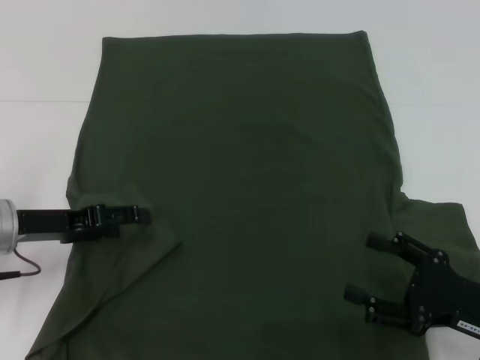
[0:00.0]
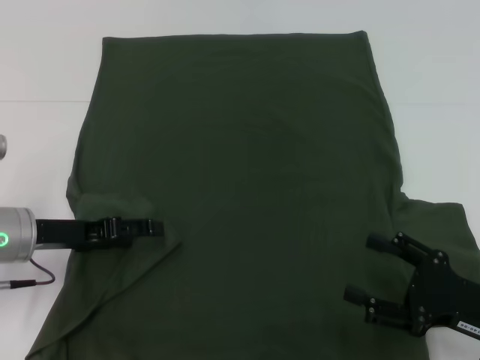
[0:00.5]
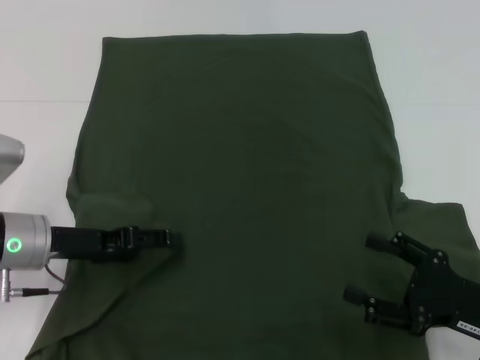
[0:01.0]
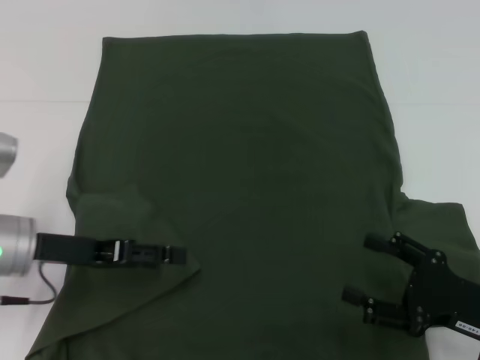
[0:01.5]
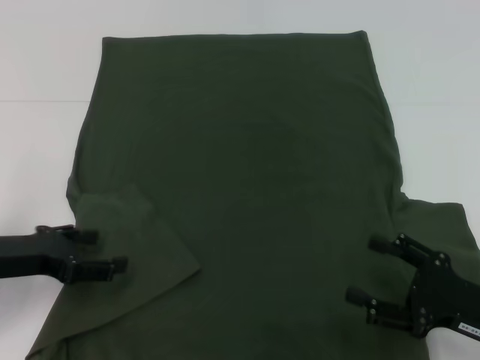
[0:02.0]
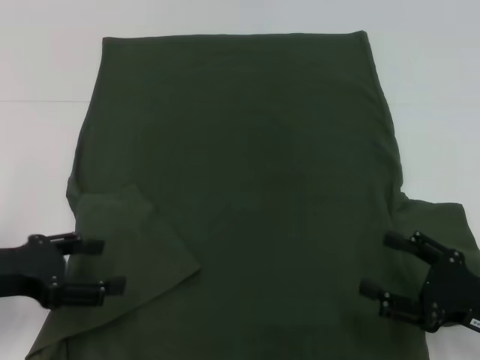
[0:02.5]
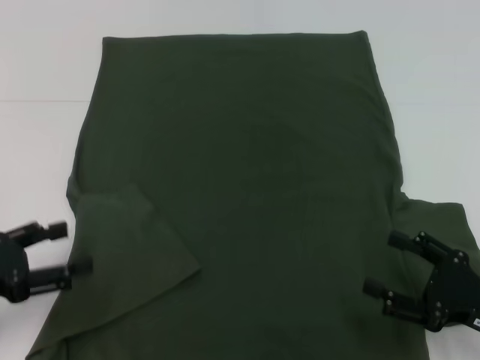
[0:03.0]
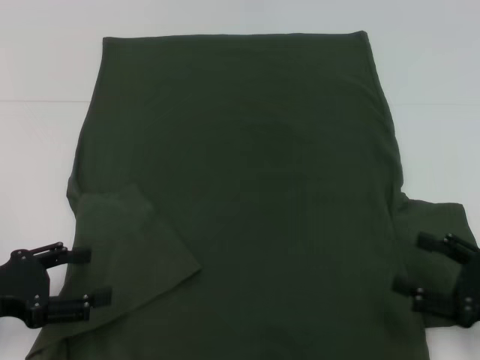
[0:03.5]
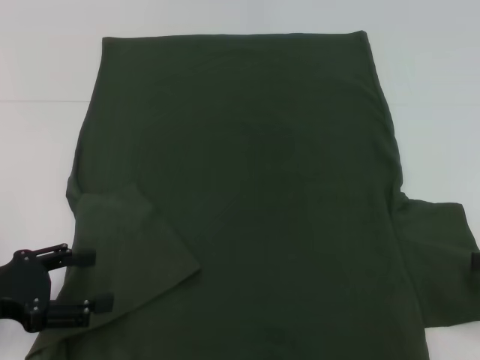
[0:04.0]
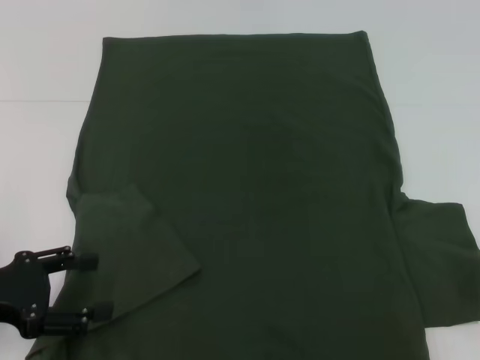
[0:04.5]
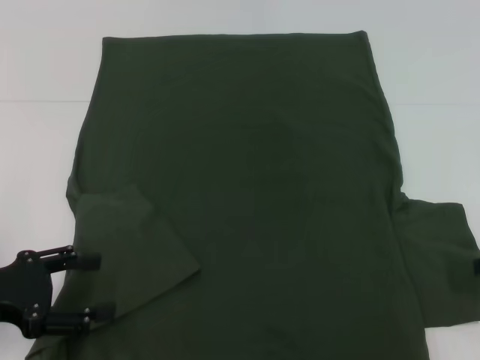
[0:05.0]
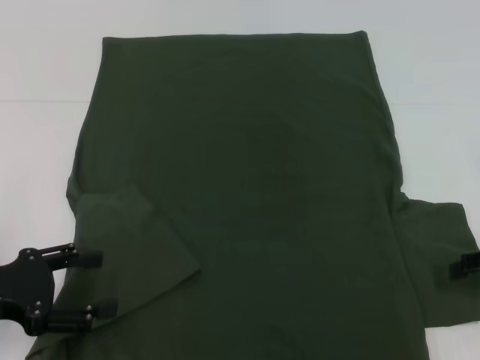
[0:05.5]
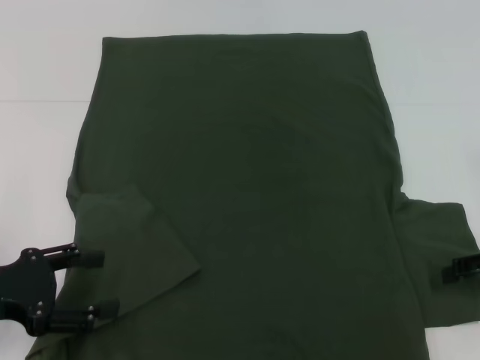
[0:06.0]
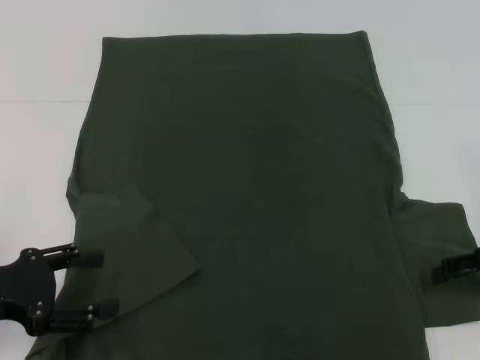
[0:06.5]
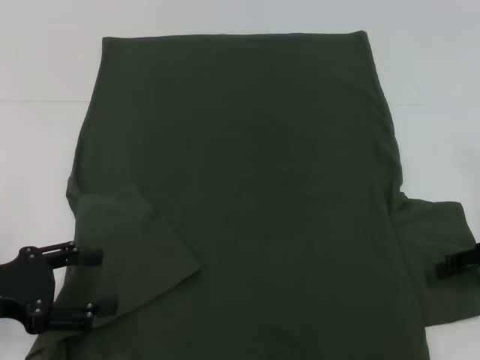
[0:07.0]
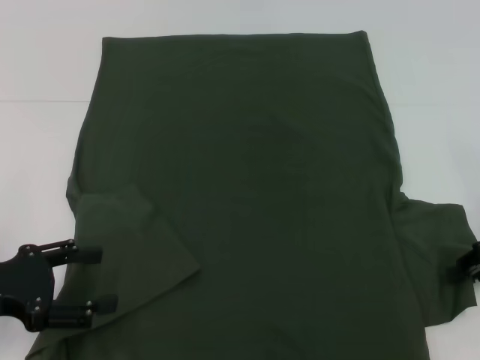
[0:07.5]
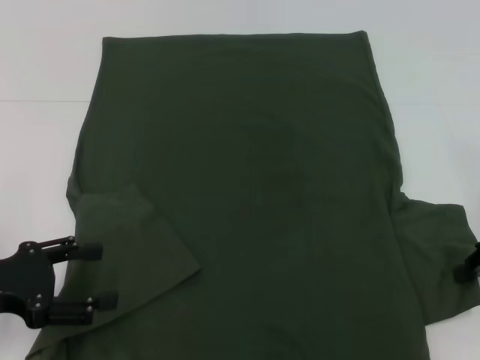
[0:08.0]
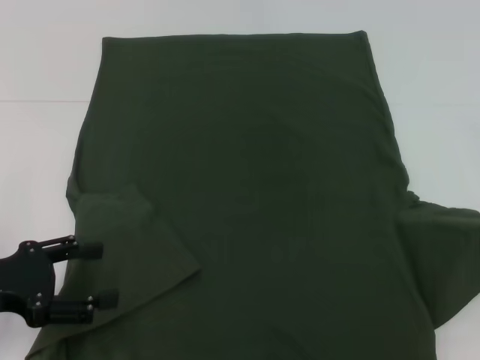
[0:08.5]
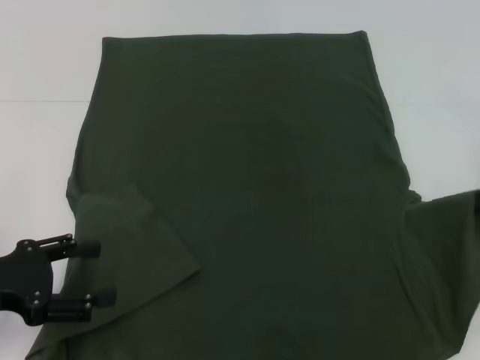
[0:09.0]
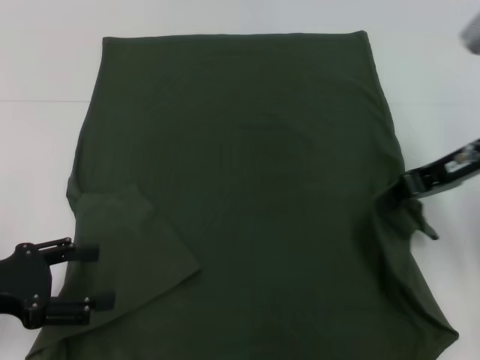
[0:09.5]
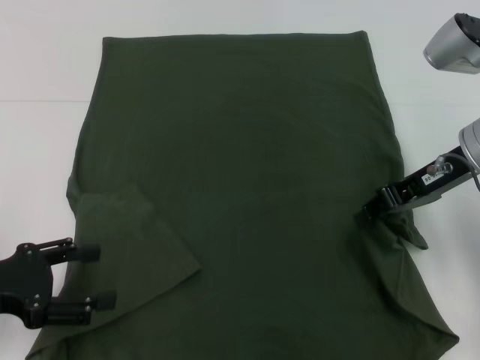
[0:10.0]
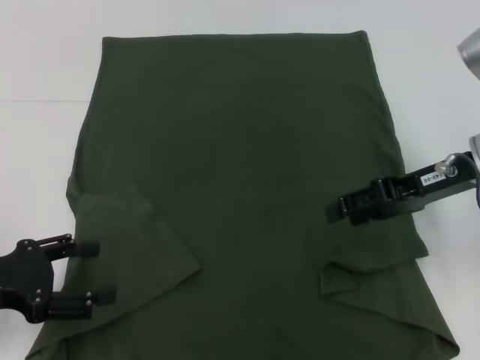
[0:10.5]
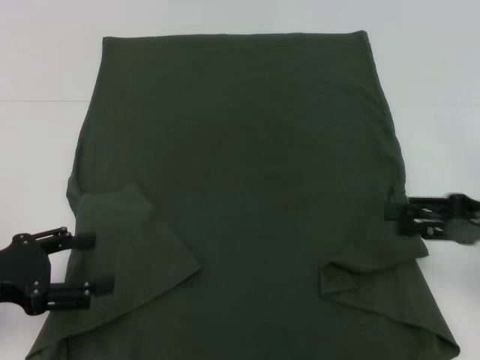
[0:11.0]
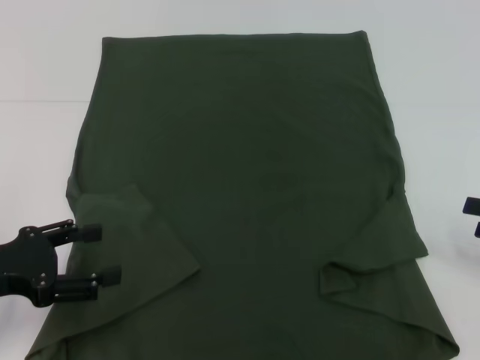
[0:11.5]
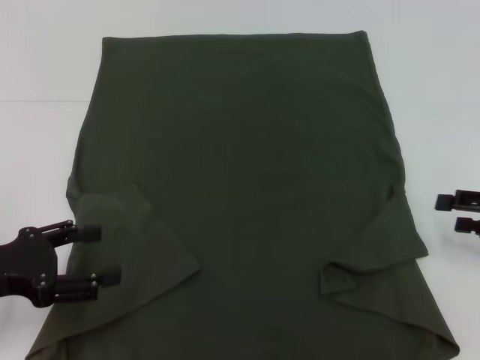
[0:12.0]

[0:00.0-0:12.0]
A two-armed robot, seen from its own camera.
0:02.0 to 0:04.0: The right gripper is displaced to the right and upward by some 15 cm. Meanwhile the left gripper is displaced backward by about 5 cm.
0:08.0 to 0:10.0: The right gripper heads to the left, upward and forward, covering some 15 cm.
0:10.0 to 0:12.0: The right gripper heads to the right, downward and backward, covering approximately 20 cm, and opens up.

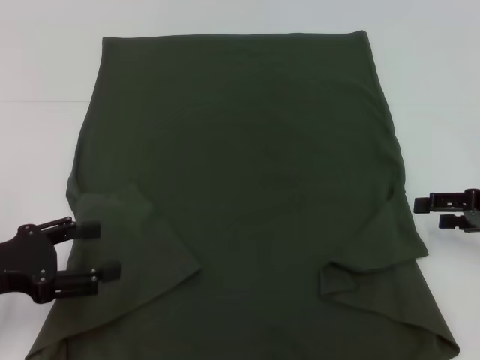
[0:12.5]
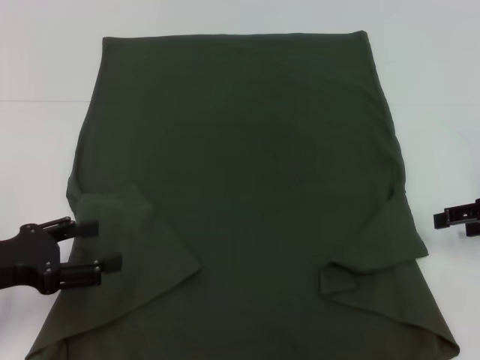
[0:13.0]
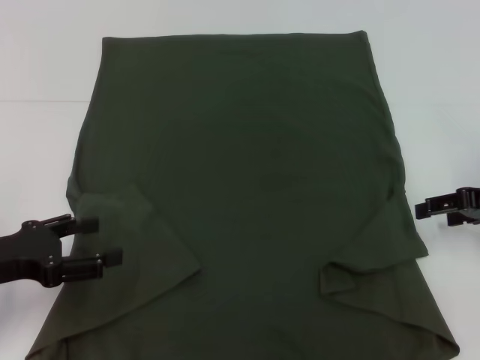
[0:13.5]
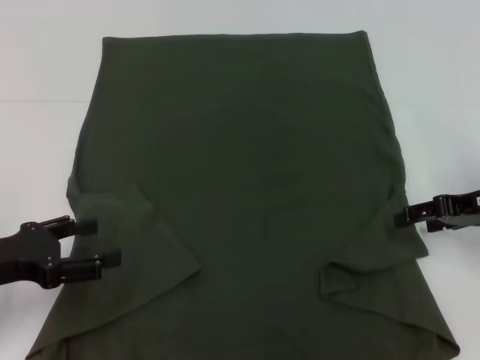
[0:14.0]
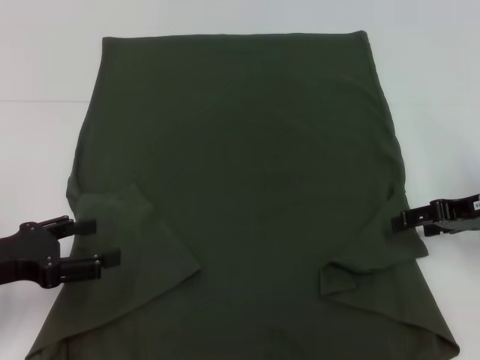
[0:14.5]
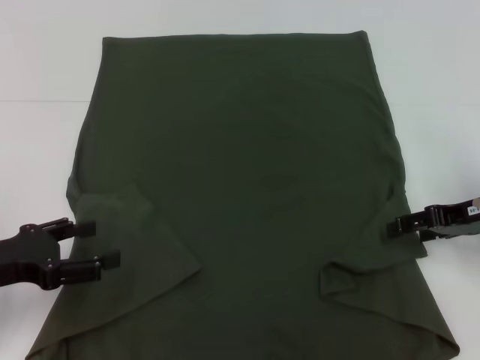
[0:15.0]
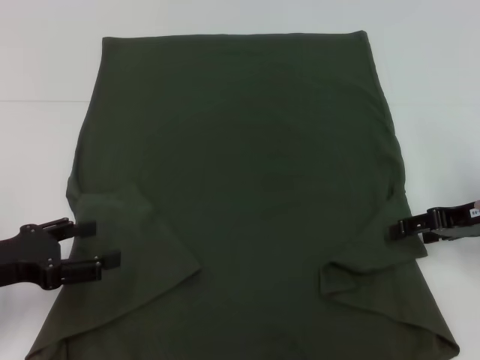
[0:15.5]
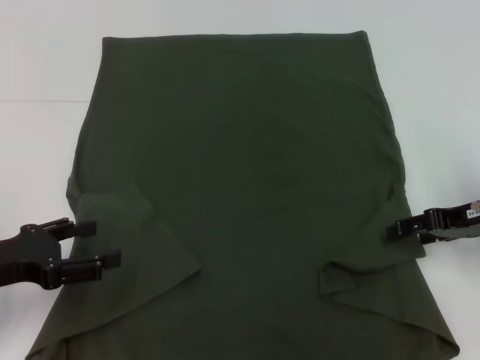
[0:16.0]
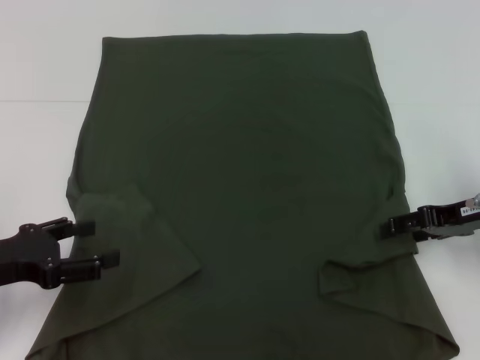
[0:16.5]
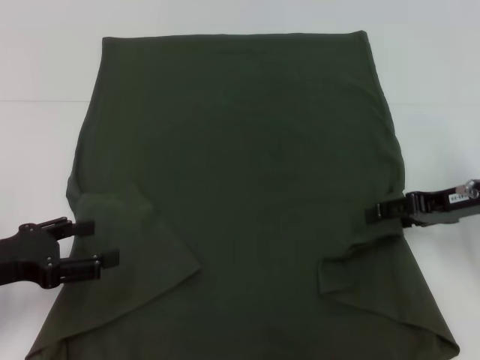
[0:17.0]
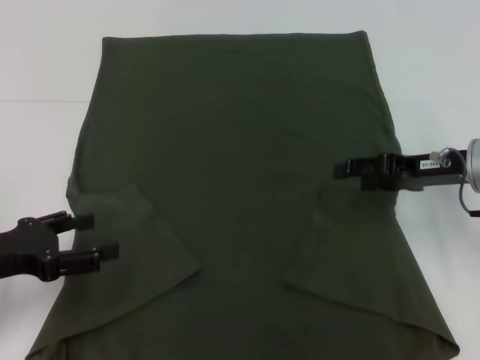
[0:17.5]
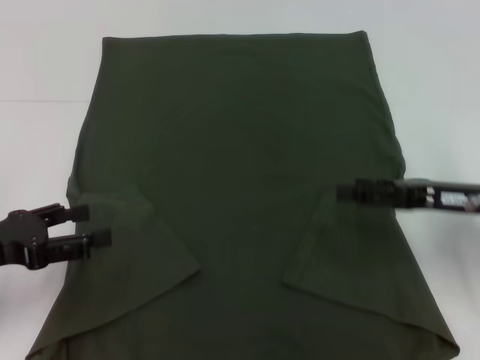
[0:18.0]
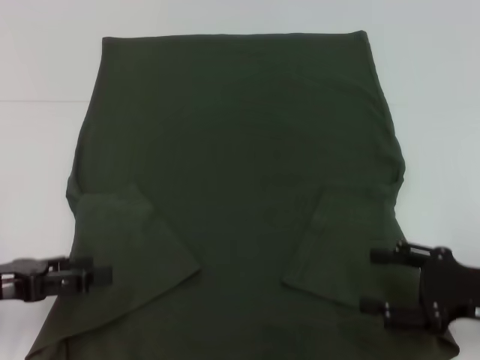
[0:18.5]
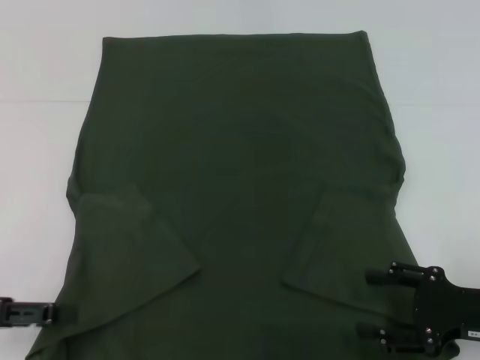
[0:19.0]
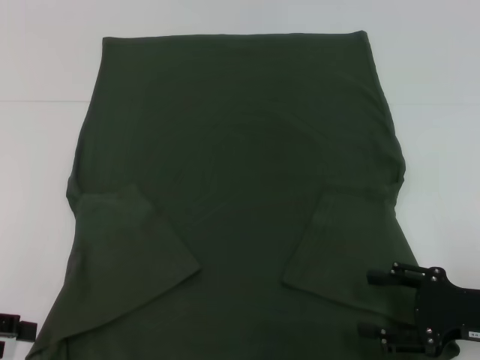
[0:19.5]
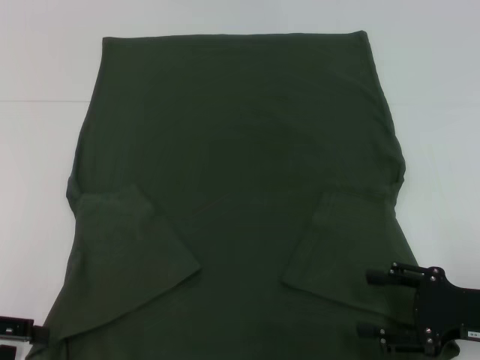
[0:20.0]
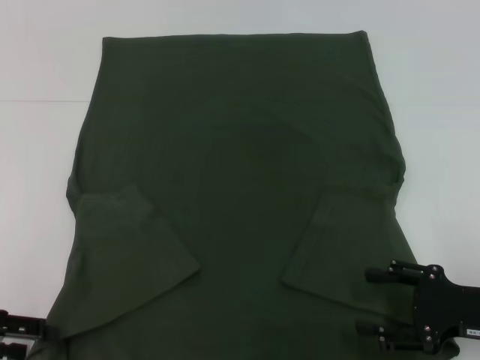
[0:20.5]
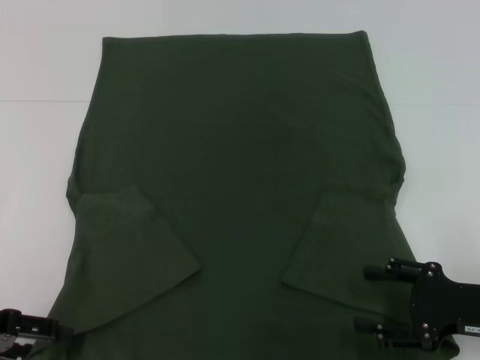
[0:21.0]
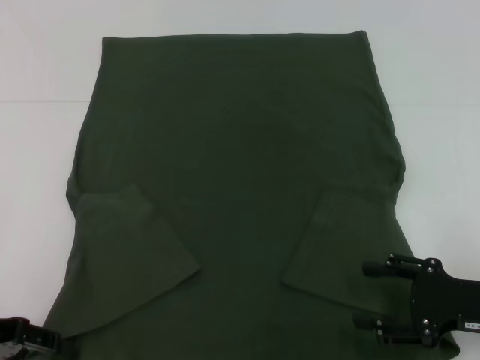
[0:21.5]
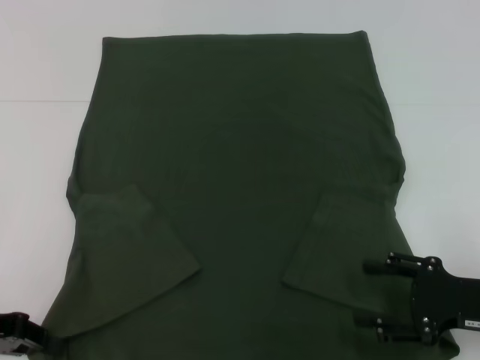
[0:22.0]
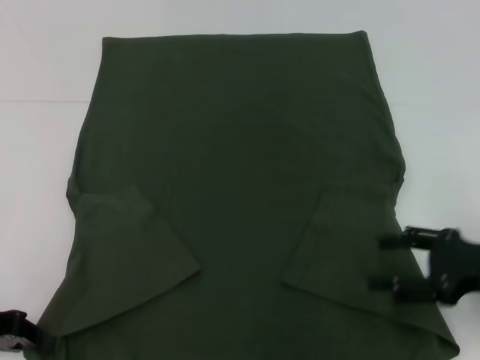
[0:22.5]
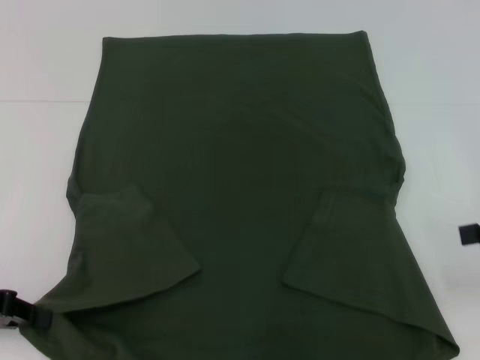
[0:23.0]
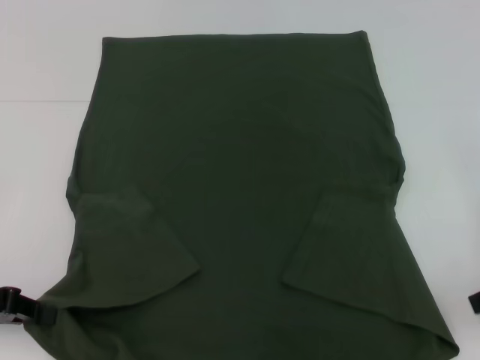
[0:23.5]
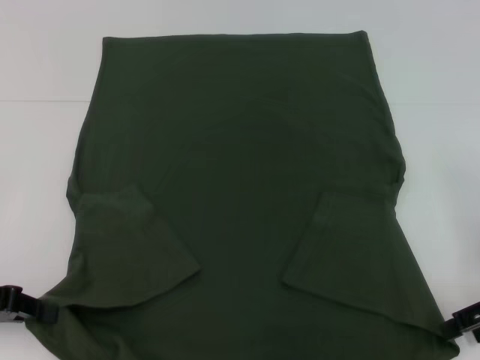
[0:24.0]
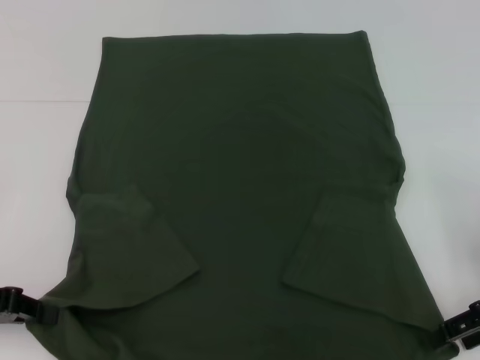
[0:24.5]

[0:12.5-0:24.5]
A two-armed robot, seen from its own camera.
Step, 0:12.5 to 0:17.0: Fold the bottom right sleeve with your right hand.
Step, 0:17.5 to 0:22.0: Grab the bottom left corner with your left hand.
0:12.5 to 0:14.5: The grippers stay close to where they were, moving slightly.
0:14.5 to 0:16.5: The two grippers keep their place.
0:16.5 to 0:18.5: The right gripper moves backward, some 10 cm.
0:20.5 to 0:22.5: The left gripper closes its fingers; the right gripper changes place by roughly 5 cm.
0:22.5 to 0:24.5: The right gripper reaches some 10 cm upward, then returns.

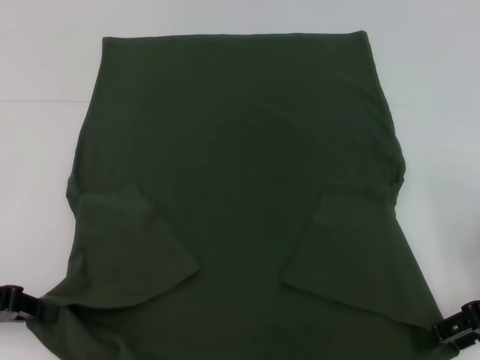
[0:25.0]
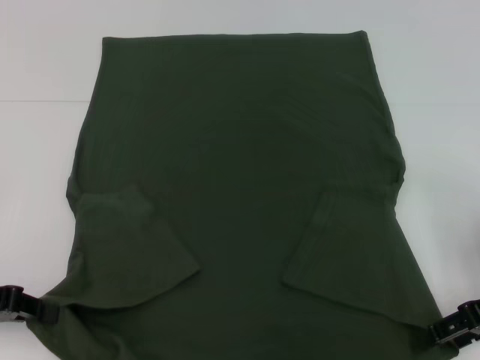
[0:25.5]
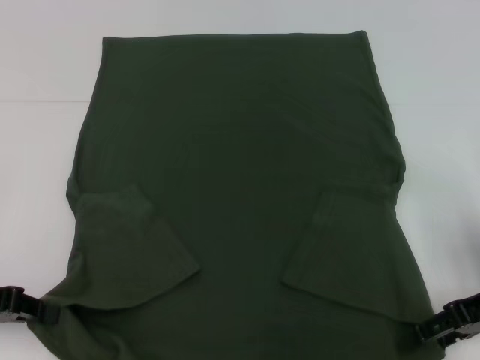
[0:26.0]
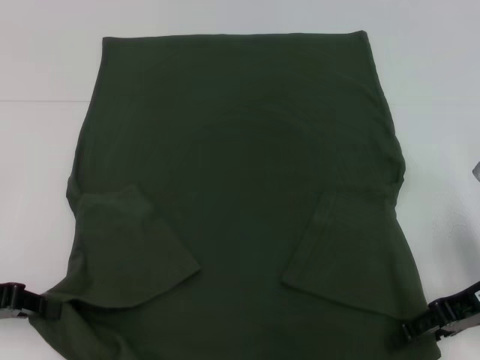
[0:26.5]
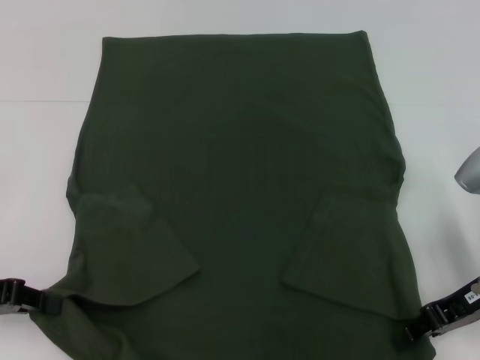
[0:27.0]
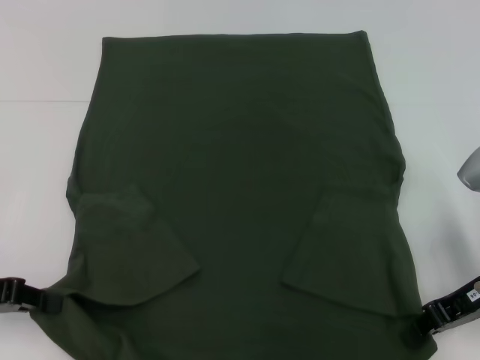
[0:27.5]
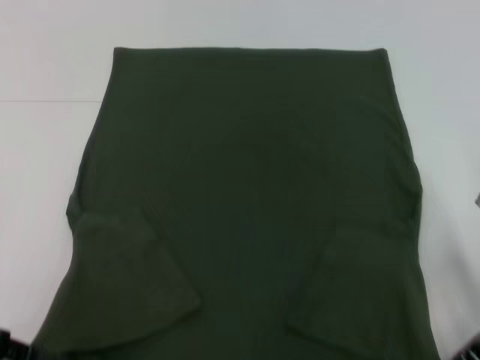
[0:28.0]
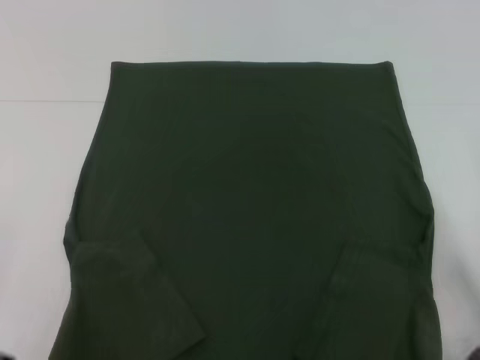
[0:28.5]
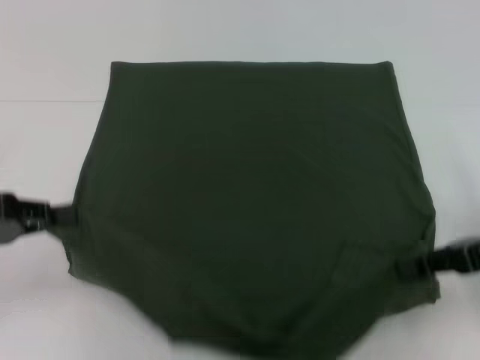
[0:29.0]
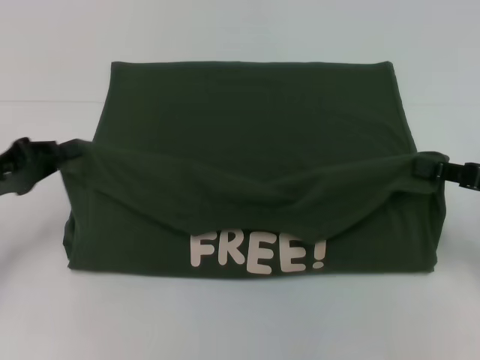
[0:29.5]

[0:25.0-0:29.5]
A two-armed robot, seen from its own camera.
Step, 0:25.0 to 0:27.0: Grab the bottom right corner with your right hand.
0:25.0 to 0:27.0: The right gripper closes up.
0:27.0 to 0:29.5: The right gripper is displaced to the right by approximately 5 cm, and closes its fingers.
